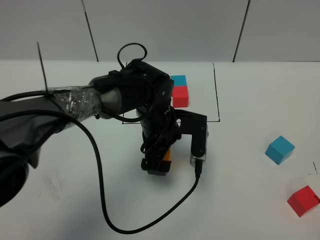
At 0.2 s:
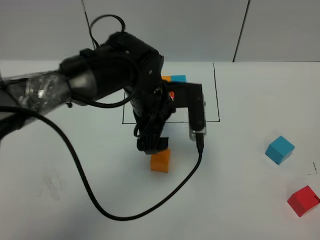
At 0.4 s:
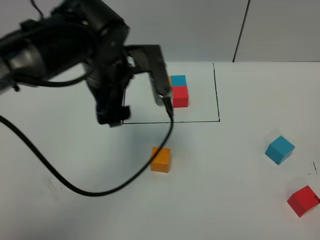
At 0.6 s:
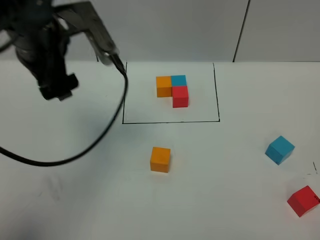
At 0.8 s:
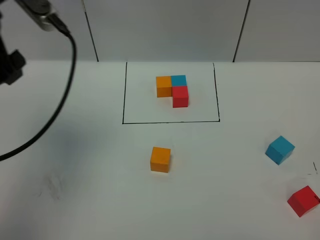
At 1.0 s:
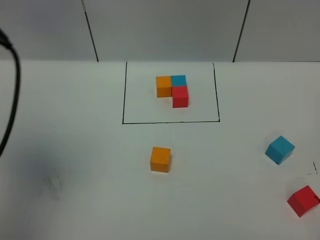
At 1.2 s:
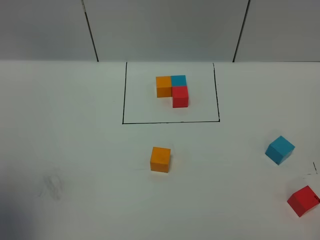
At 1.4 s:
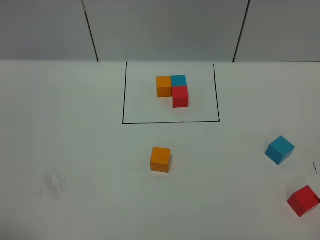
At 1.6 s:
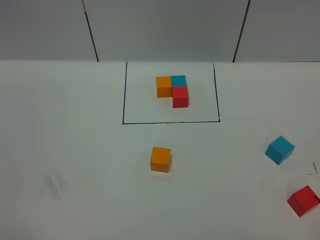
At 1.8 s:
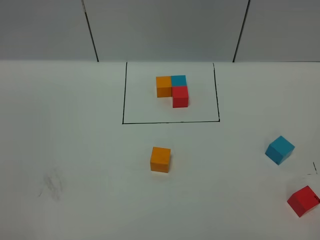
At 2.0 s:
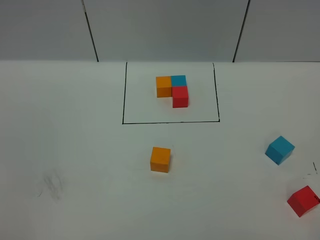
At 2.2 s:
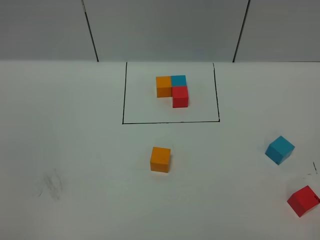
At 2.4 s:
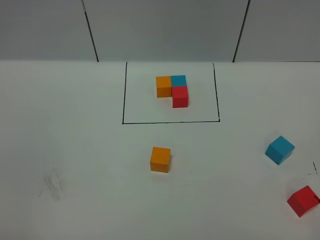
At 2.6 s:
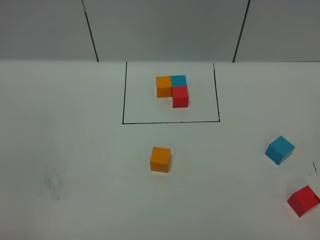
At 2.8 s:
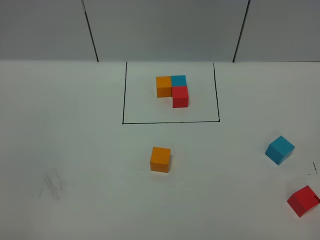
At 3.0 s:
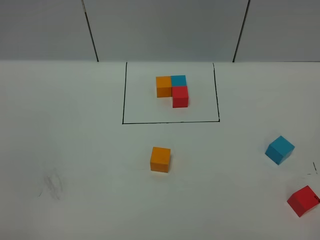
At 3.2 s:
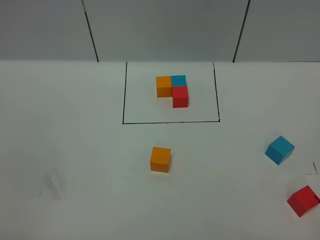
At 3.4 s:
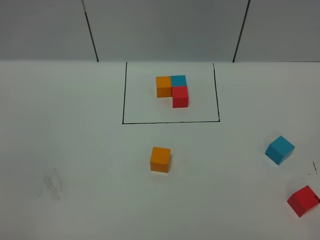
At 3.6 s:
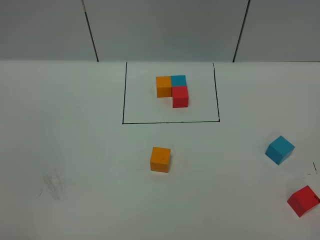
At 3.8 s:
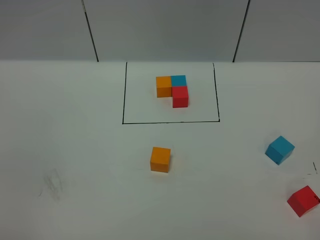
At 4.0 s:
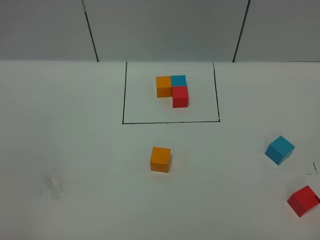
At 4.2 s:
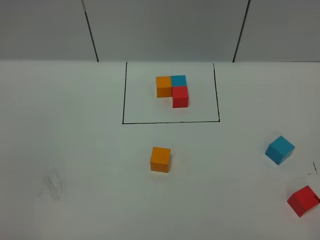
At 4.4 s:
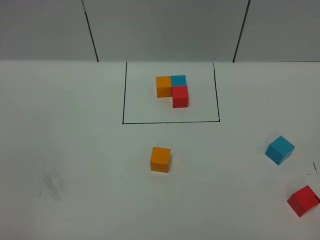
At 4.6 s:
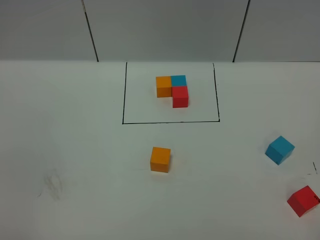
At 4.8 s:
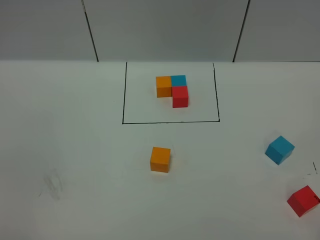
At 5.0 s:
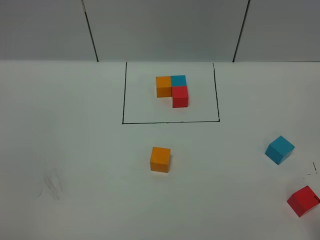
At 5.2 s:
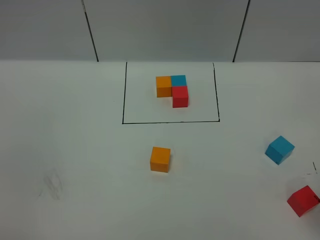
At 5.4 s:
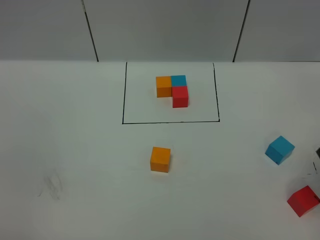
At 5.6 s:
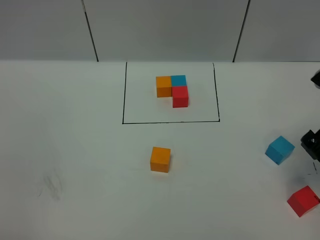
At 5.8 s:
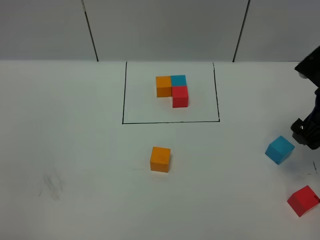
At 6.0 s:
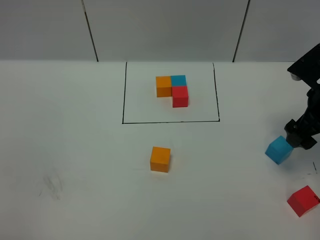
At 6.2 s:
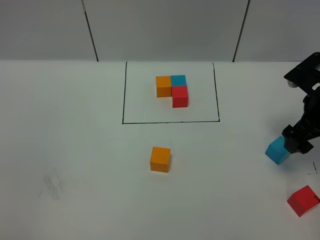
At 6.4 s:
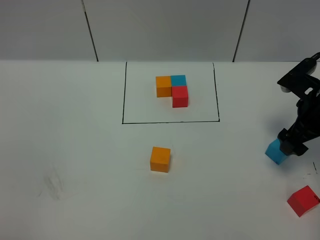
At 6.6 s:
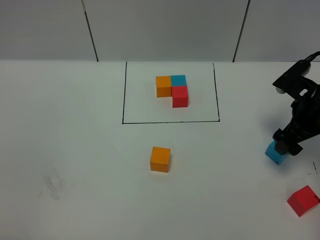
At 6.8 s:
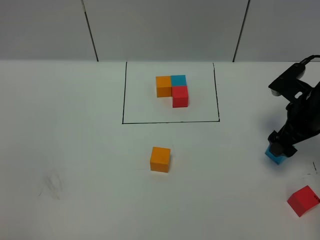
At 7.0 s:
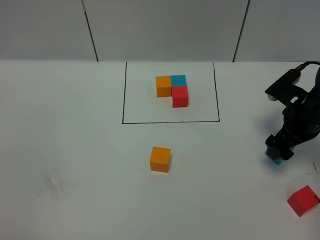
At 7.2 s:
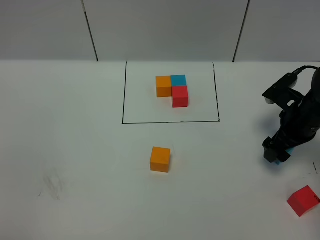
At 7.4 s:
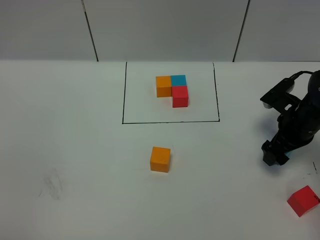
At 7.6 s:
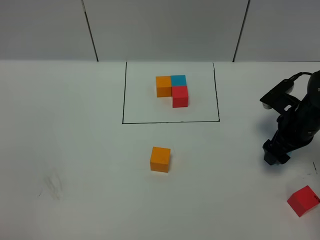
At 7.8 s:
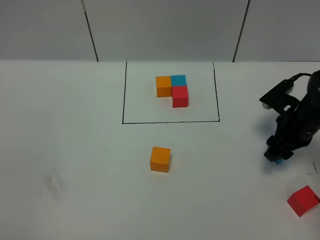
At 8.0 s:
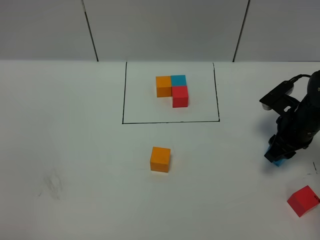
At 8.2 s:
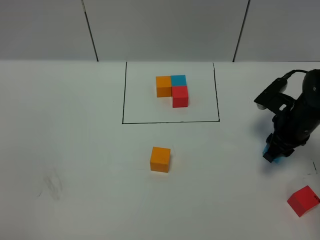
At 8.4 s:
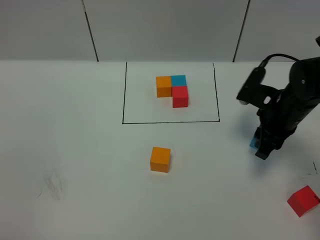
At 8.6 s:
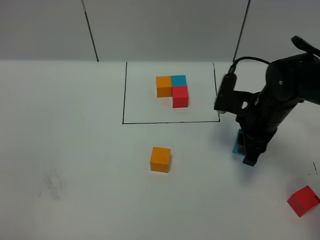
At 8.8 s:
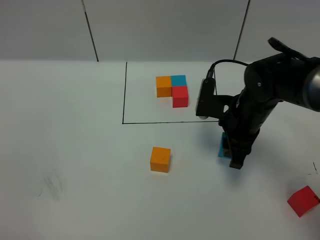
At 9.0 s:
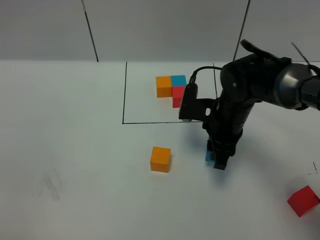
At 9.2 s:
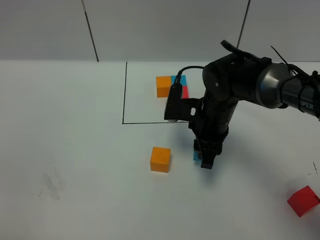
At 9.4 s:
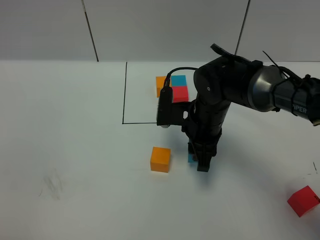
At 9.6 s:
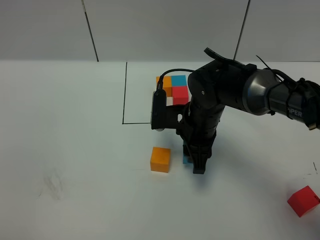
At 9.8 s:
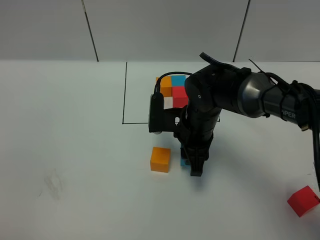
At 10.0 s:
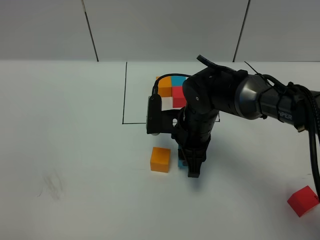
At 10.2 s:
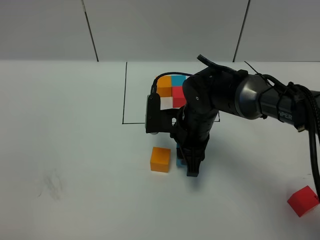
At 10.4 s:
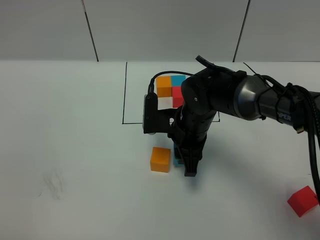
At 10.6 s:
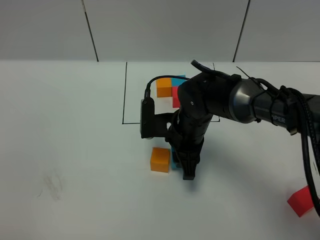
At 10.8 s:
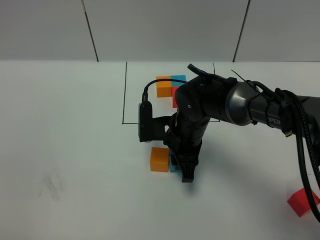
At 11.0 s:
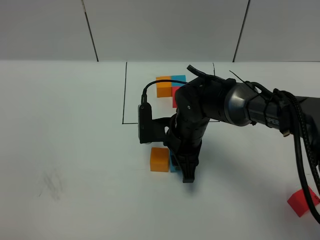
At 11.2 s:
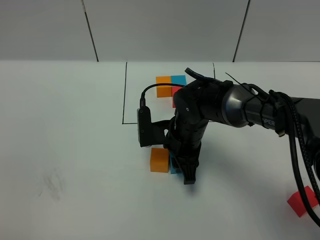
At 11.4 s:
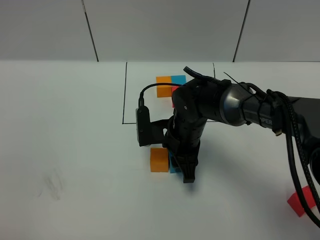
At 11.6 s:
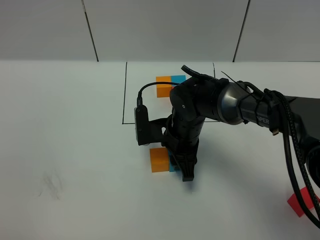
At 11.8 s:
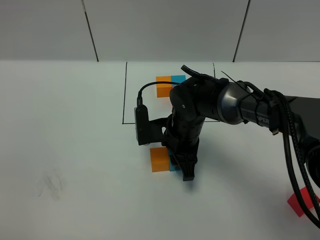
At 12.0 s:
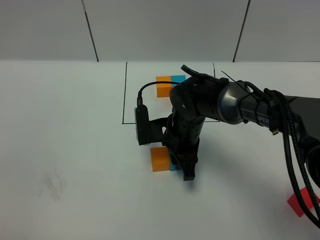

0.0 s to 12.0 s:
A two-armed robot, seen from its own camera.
Task of the whole recording: According to the building block template in front, assemble the scattered blocks together.
0.0 to 1.6 s: The left gripper heads backward, to the left and upward, covering some 60 cm.
3.0 to 4.4 s: Both grippers stay about where they are.
4.4 to 6.0 s: The right gripper moves forward, roughly 35 cm, and opens.
6.0 to 7.6 s: The right gripper moves downward, some 10 cm.
7.6 to 9.0 s: The right gripper is displaced to the left by roughly 15 cm, and closes.
9.0 to 10.4 s: The right gripper goes approximately 5 cm to the left.
10.4 to 12.0 s: The grippers stay close to where they were, moving slightly.

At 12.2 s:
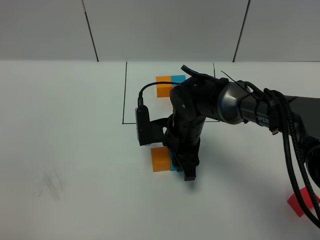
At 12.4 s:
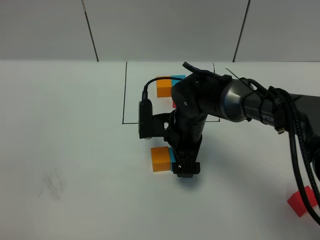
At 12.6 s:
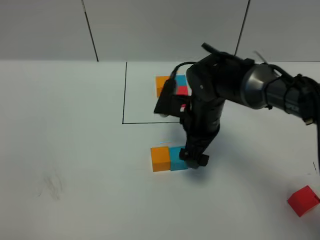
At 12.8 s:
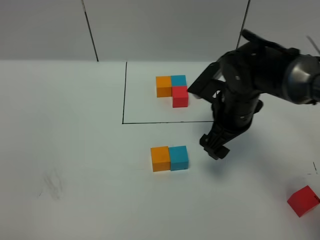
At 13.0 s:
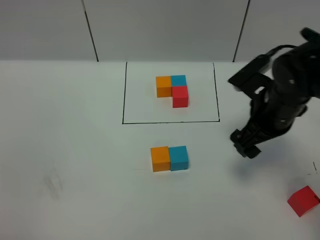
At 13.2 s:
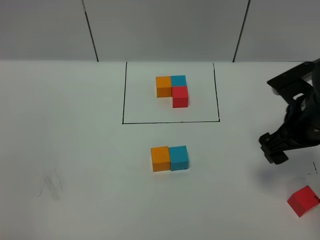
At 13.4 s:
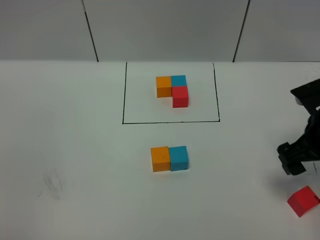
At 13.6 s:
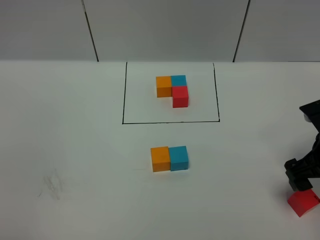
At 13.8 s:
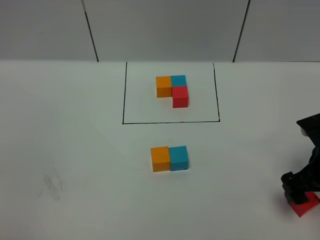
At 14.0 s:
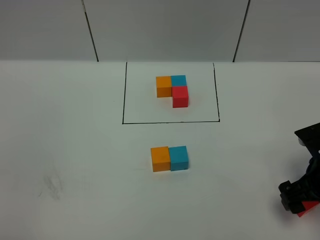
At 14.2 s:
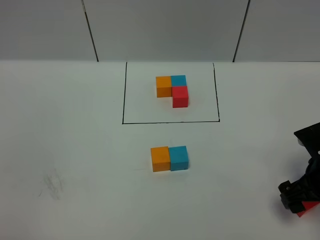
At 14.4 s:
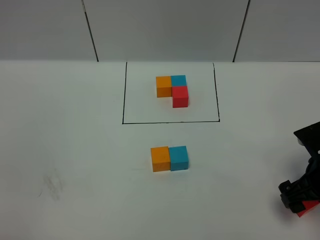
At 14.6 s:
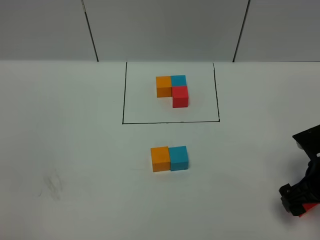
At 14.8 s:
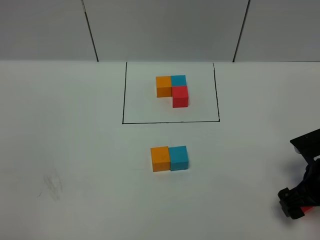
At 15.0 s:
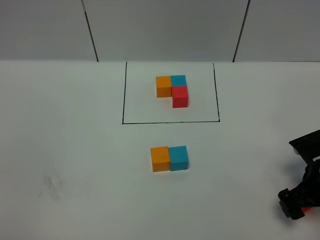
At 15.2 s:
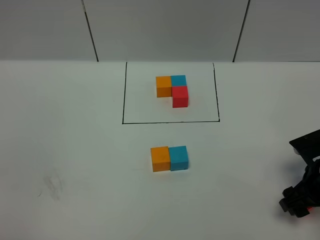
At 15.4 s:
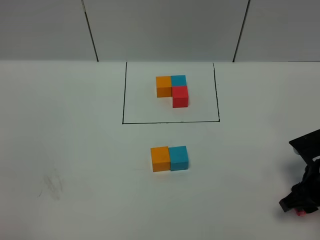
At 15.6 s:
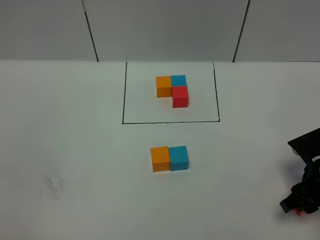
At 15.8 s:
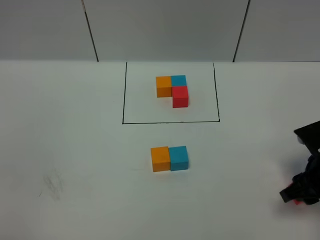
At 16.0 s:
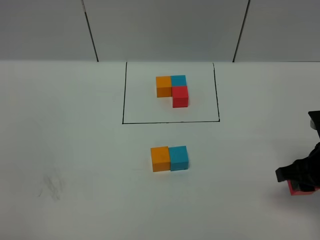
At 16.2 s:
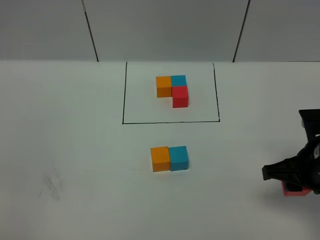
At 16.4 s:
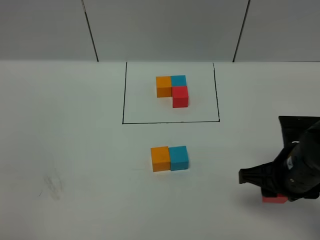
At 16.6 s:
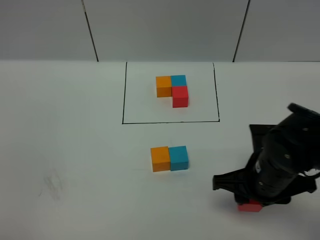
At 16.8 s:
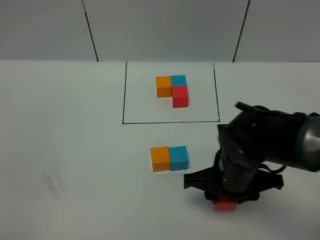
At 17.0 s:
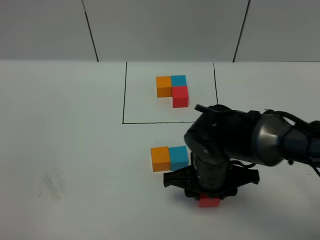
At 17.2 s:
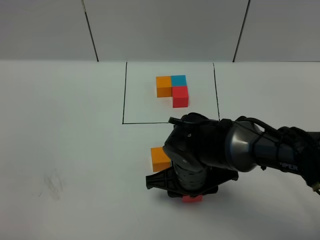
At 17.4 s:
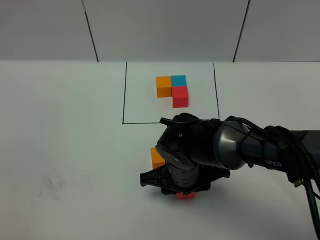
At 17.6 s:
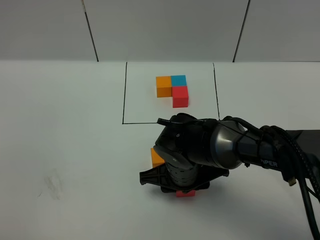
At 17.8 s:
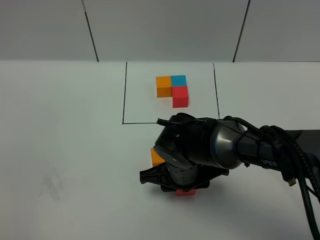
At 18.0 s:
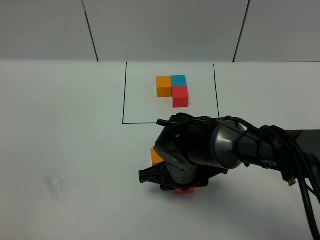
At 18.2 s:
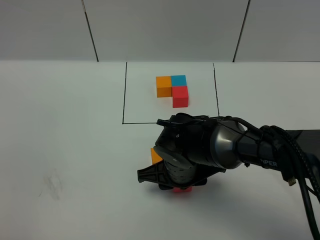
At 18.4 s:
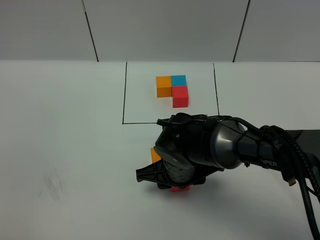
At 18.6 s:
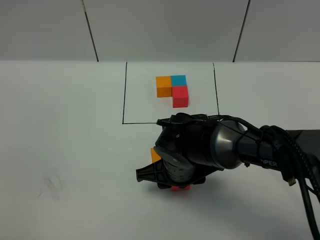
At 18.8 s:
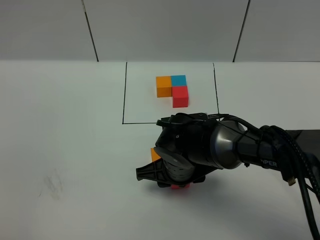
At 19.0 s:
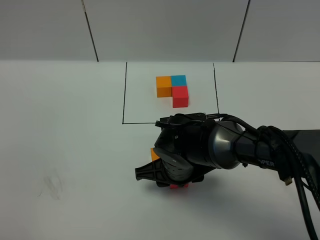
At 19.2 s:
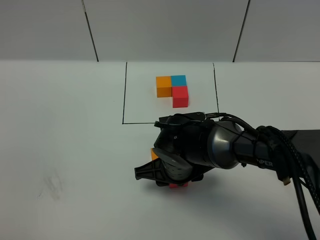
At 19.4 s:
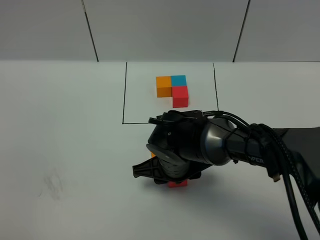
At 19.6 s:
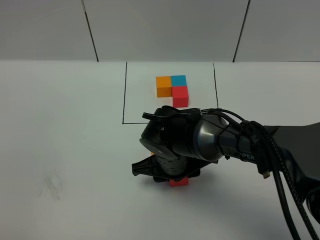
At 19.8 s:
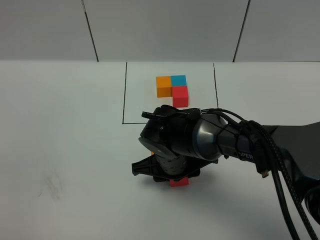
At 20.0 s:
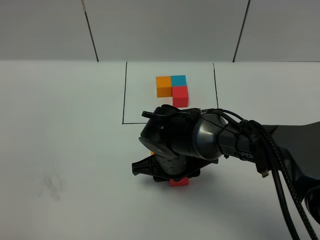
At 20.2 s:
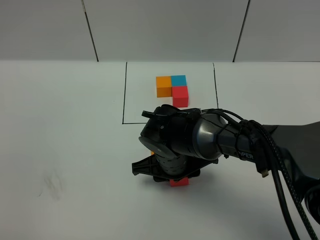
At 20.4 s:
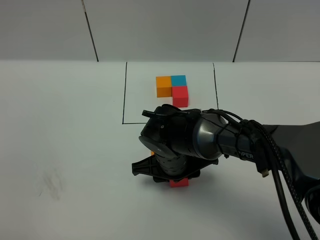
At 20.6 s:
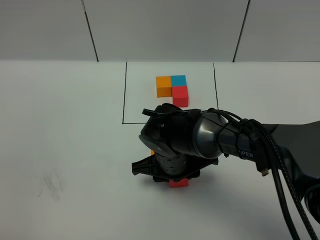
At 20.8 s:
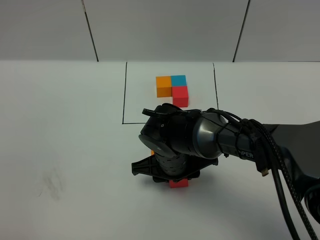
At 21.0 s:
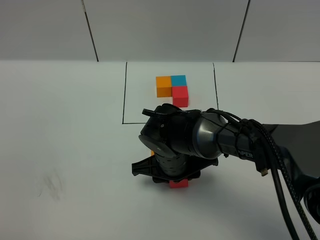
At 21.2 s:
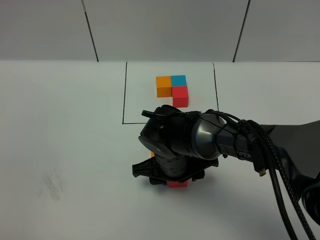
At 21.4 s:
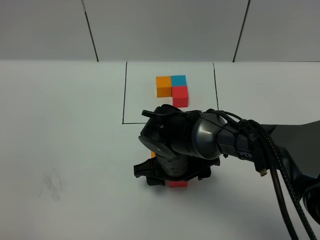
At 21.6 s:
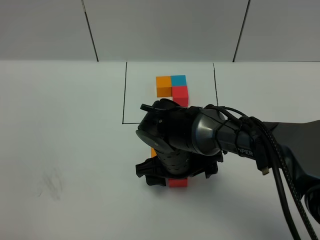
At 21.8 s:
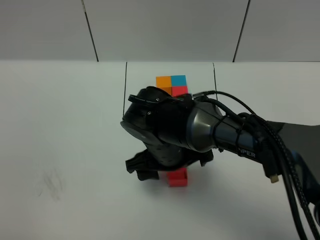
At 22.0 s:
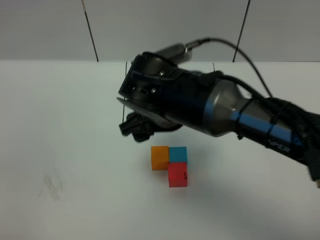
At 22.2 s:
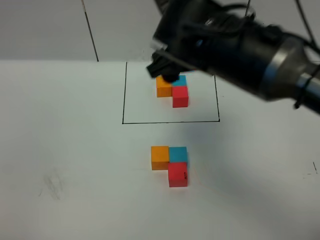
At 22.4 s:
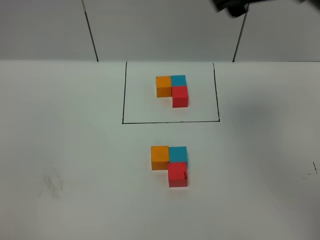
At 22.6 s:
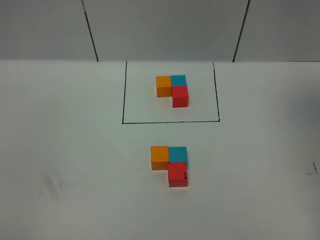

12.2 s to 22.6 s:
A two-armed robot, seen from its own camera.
Task of the whole recording: According to the building block template in front, assemble the scattered blocks together.
Step, 12.6 to 21.6 s: Put the red cube in the front of the blue cube.
12.2 to 13.6 s: The right gripper shifts some 25 cm to the right and backward, and opens its fingers.
13.6 to 15.2 s: The right gripper travels downward by roughly 5 cm.
15.2 to 16.6 s: The right gripper travels to the left by some 10 cm, and closes its fingers.
16.6 to 18.2 s: The right gripper is displaced to the left by approximately 15 cm.
18.2 to 19.6 s: The grippers stay close to where they were, moving slightly.
19.6 to 21.2 s: Neither gripper changes place.
21.2 to 22.6 s: The right gripper heads upward and to the right, covering roughly 40 cm, and opens its fingers.
